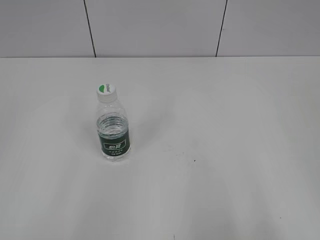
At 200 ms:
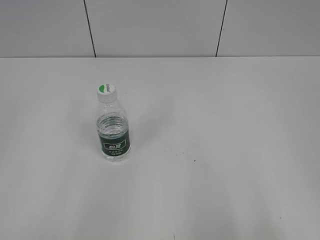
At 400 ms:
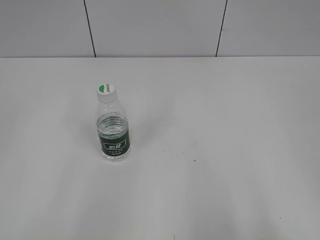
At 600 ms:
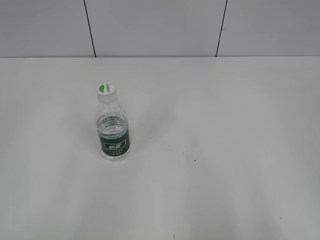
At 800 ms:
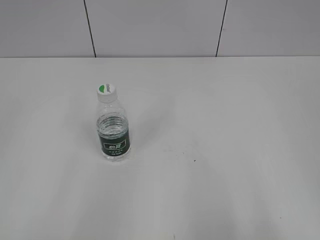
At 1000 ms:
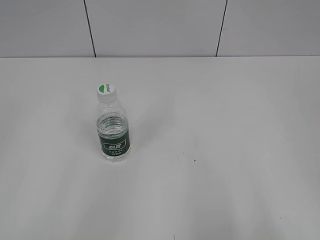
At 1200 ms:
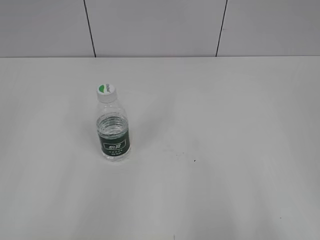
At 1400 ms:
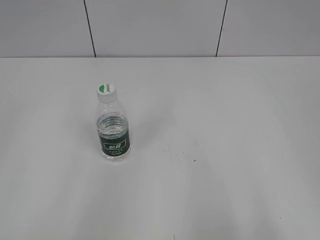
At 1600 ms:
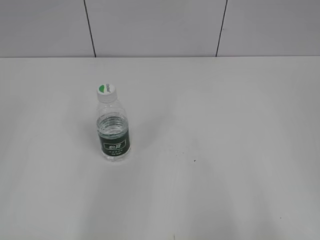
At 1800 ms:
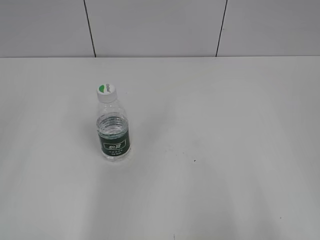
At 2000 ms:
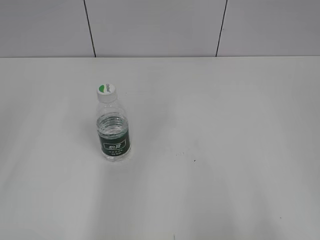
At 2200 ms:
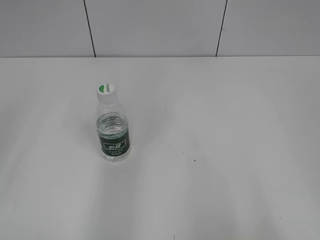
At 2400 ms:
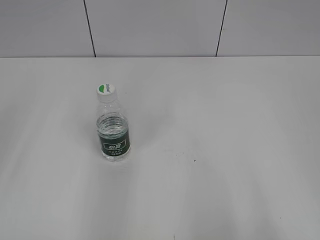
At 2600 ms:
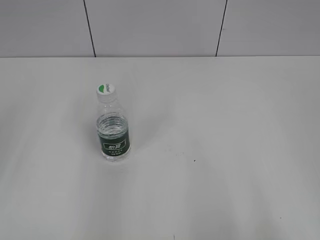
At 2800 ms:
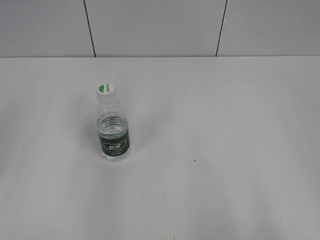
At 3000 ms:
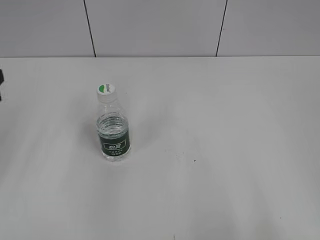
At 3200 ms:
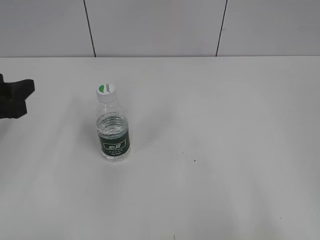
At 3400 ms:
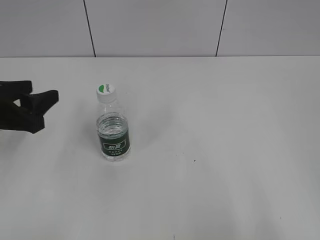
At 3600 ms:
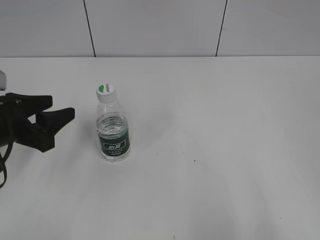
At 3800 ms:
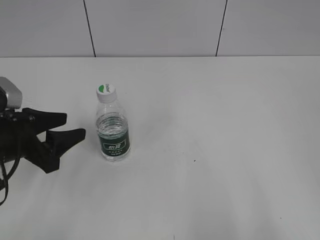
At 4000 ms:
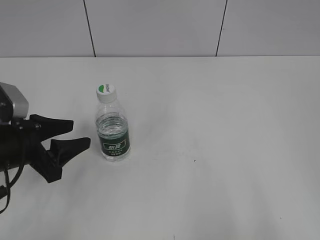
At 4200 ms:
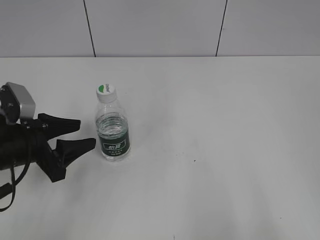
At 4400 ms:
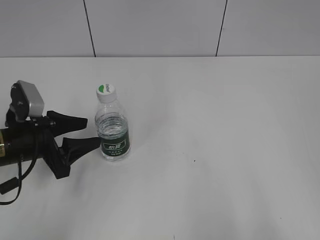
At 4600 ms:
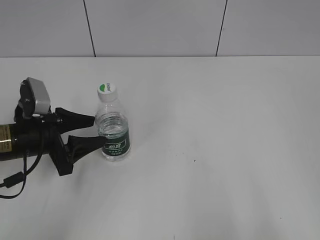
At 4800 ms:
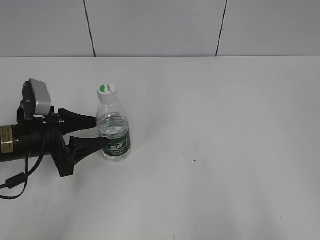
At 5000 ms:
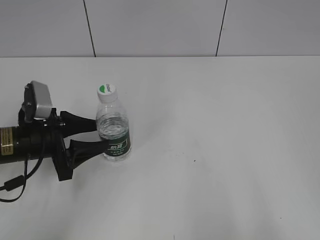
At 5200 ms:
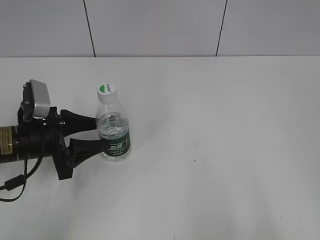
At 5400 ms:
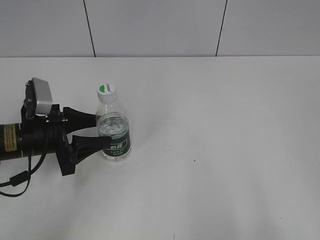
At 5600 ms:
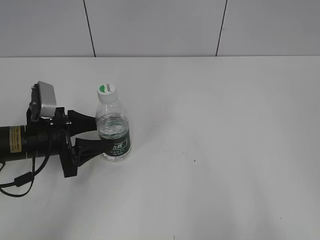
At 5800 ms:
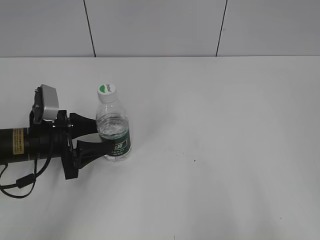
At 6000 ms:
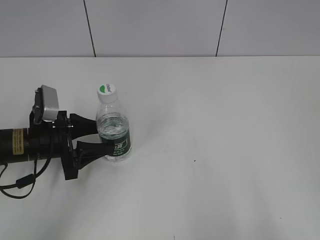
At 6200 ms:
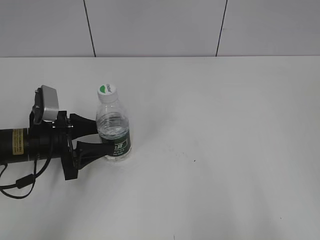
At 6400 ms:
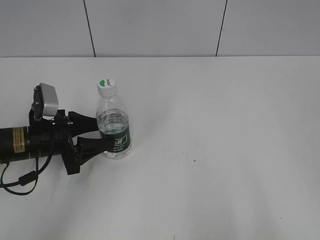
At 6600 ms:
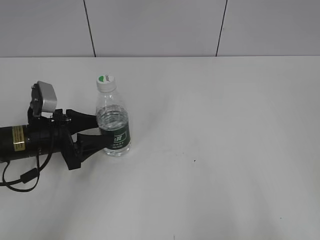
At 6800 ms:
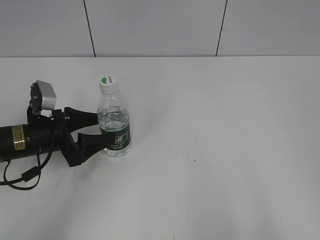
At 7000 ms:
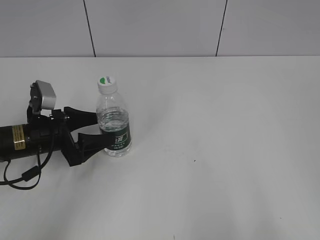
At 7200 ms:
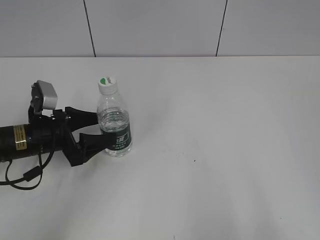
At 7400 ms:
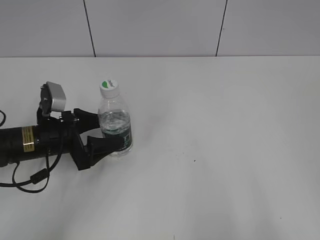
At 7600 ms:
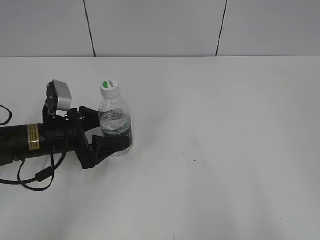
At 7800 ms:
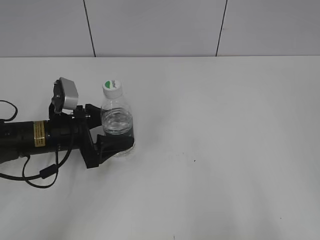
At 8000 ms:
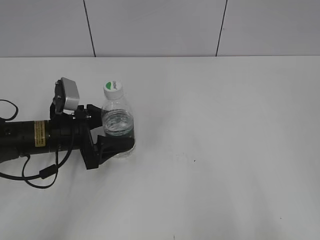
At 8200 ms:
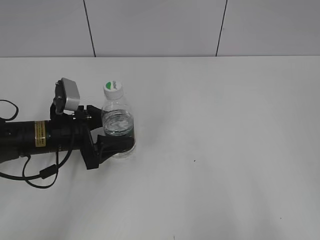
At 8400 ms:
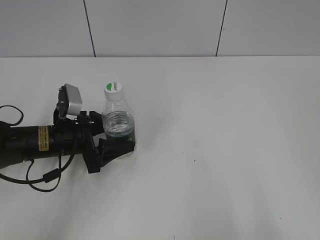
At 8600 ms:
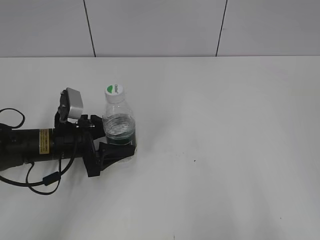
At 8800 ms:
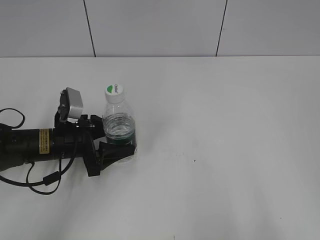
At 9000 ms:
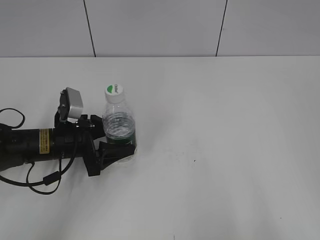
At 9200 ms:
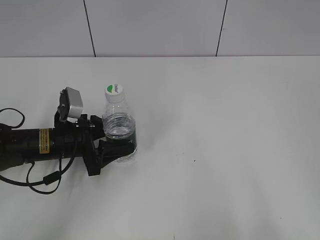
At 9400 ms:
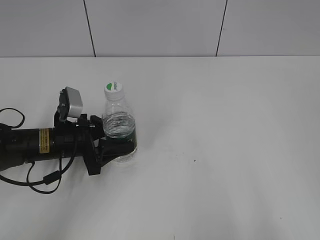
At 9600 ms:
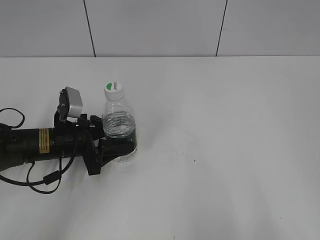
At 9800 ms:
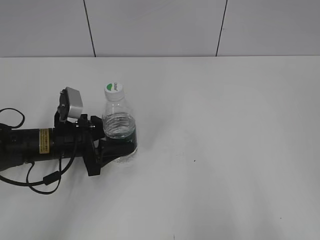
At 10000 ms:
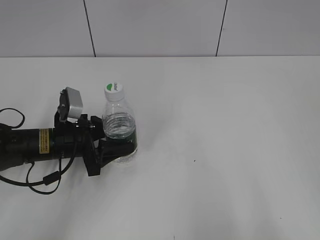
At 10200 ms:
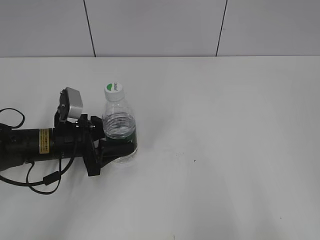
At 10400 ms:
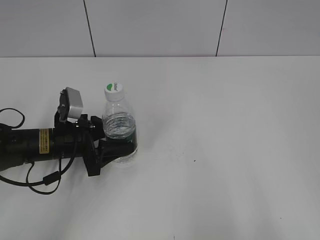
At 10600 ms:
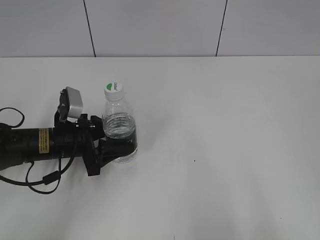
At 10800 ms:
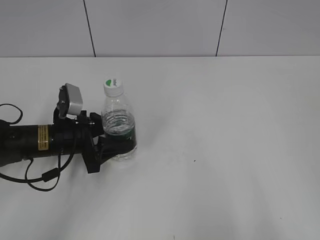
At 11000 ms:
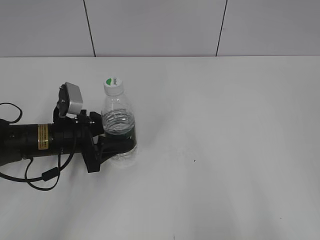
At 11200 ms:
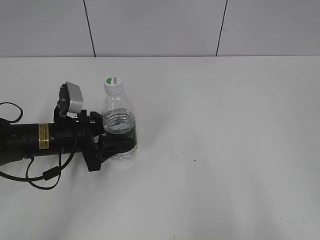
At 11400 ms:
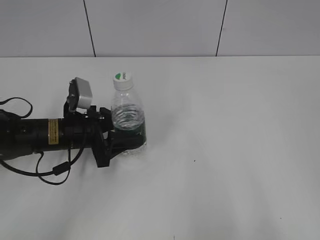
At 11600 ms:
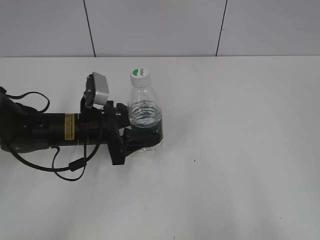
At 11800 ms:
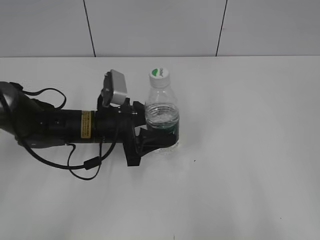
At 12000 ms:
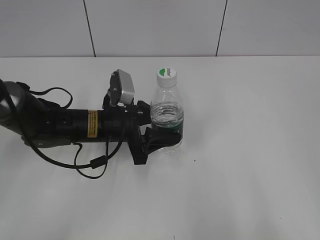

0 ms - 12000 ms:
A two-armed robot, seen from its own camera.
Step, 0 ms - 8600 ms: Grasp the bottle and move it to the center of the table with the left gripper.
3000 ms - 4400 ms: The left gripper is displaced downward and to the right by some 15 cm.
4400 ms - 6000 ms: There are only small adjustments of the grippers.
6000 ms - 7600 ms: The left gripper opens.
7600 ms - 9000 ms: The left gripper closes up.
10400 ms - 12000 ms: The left gripper shifts about 10 cm to the right.

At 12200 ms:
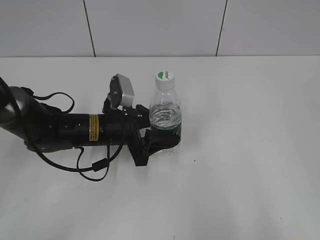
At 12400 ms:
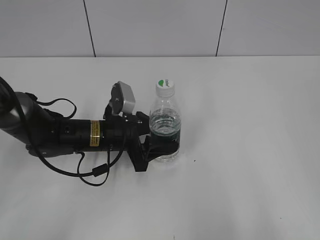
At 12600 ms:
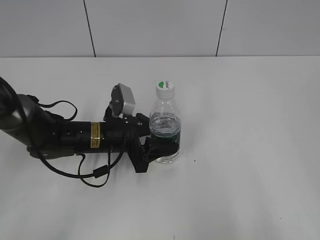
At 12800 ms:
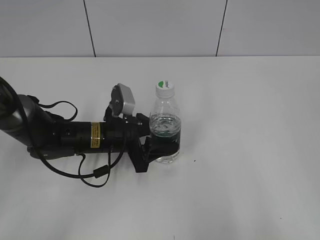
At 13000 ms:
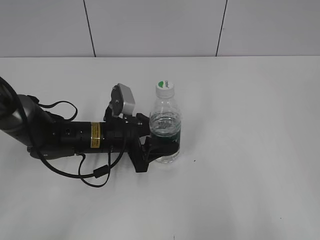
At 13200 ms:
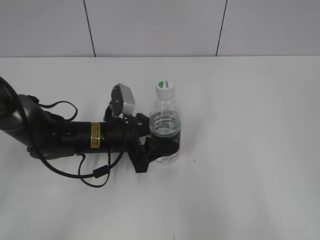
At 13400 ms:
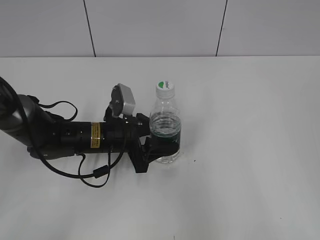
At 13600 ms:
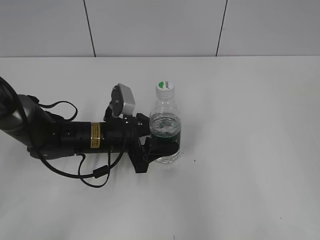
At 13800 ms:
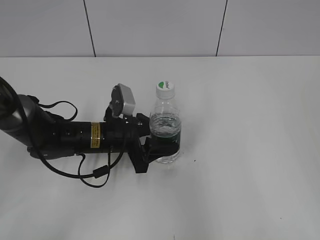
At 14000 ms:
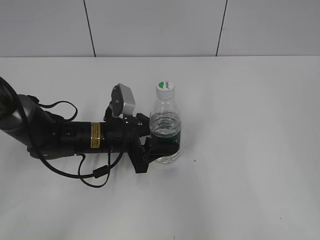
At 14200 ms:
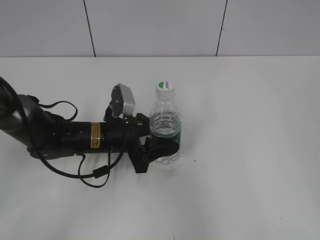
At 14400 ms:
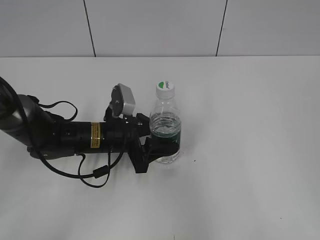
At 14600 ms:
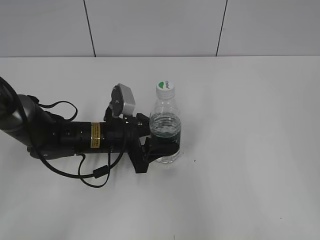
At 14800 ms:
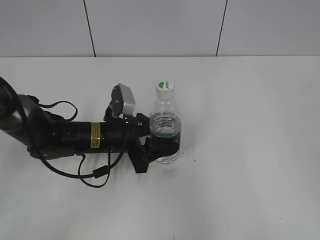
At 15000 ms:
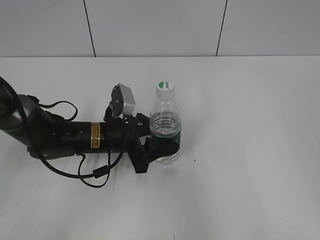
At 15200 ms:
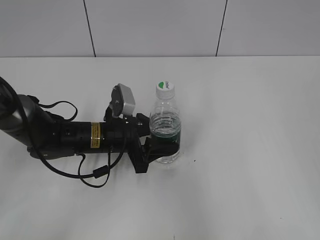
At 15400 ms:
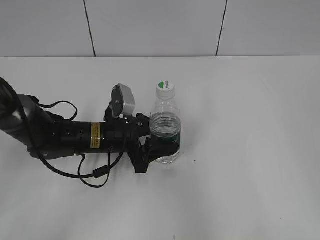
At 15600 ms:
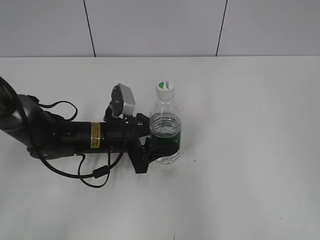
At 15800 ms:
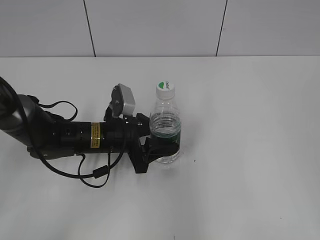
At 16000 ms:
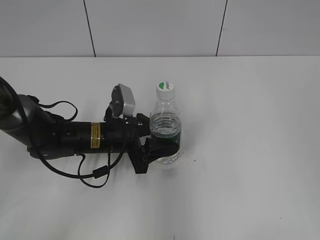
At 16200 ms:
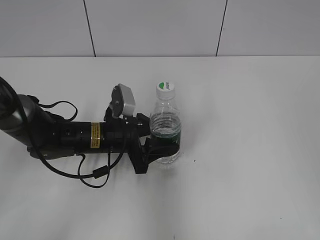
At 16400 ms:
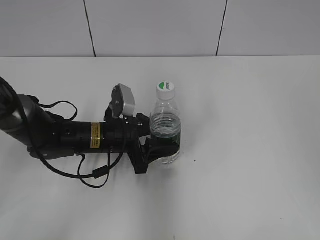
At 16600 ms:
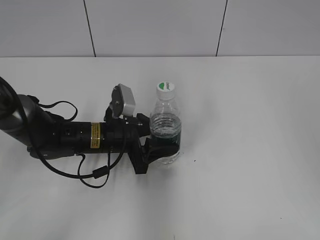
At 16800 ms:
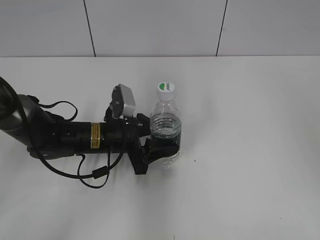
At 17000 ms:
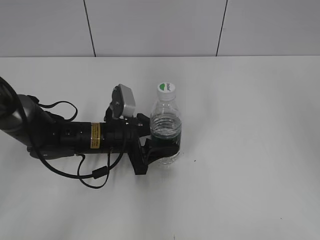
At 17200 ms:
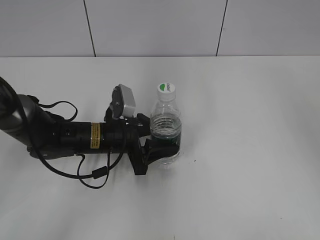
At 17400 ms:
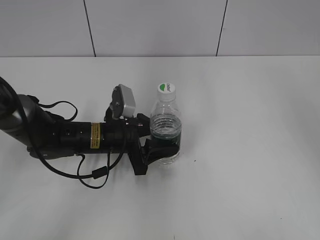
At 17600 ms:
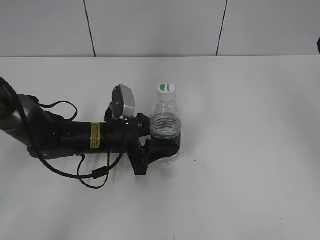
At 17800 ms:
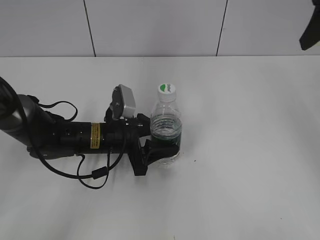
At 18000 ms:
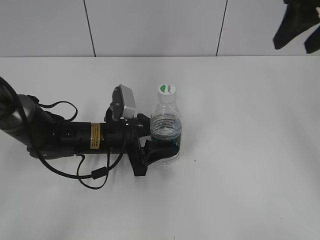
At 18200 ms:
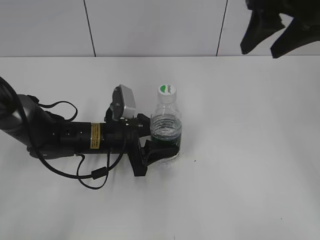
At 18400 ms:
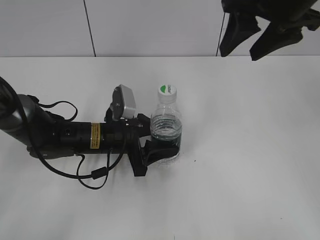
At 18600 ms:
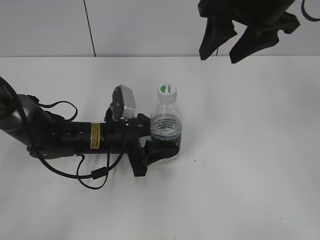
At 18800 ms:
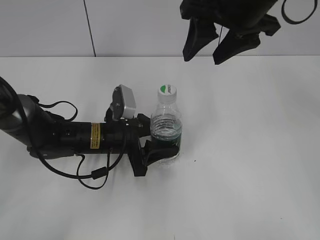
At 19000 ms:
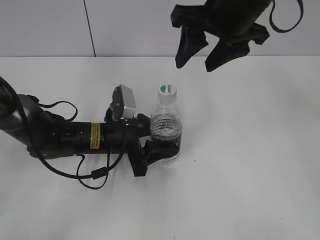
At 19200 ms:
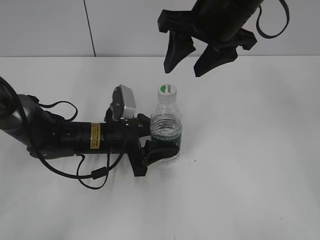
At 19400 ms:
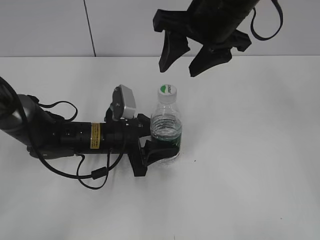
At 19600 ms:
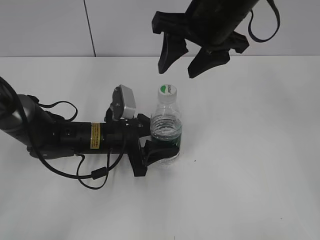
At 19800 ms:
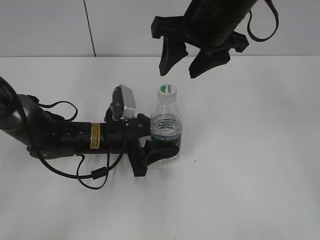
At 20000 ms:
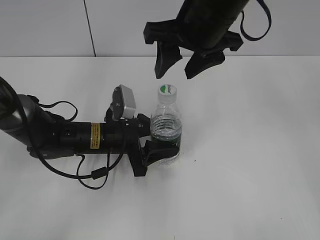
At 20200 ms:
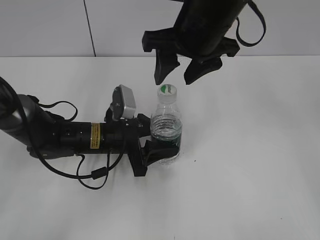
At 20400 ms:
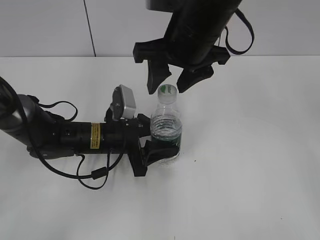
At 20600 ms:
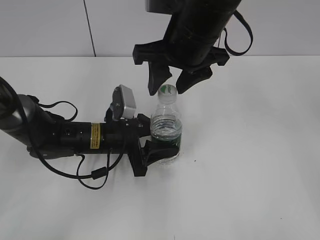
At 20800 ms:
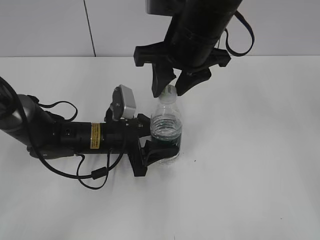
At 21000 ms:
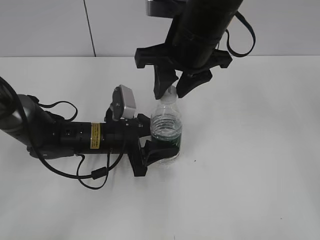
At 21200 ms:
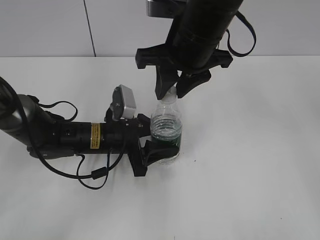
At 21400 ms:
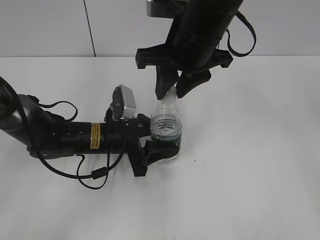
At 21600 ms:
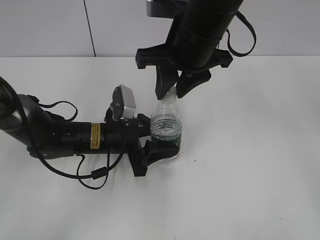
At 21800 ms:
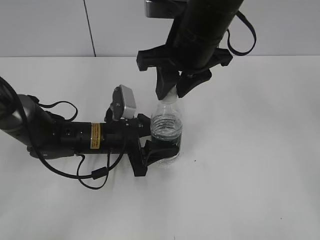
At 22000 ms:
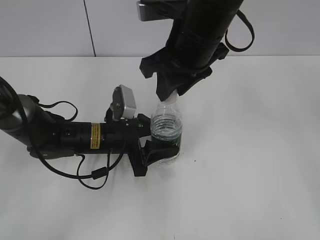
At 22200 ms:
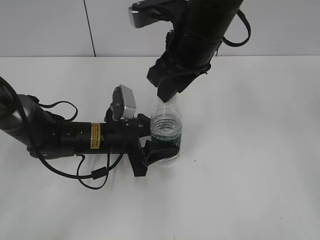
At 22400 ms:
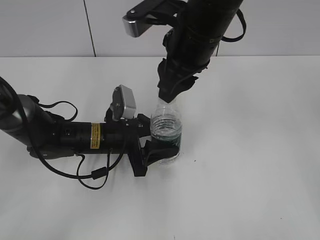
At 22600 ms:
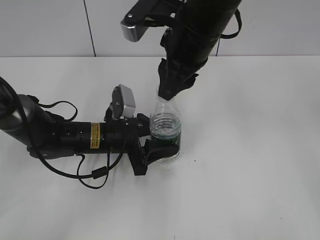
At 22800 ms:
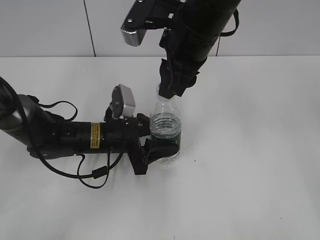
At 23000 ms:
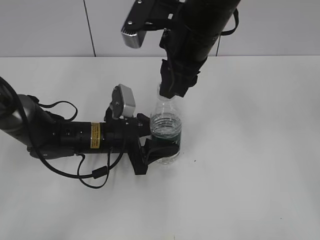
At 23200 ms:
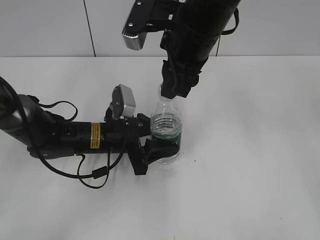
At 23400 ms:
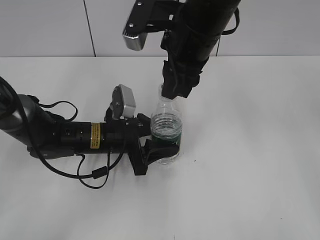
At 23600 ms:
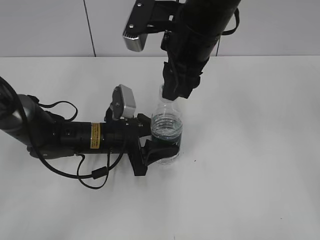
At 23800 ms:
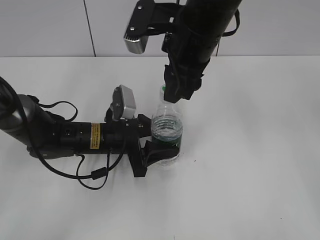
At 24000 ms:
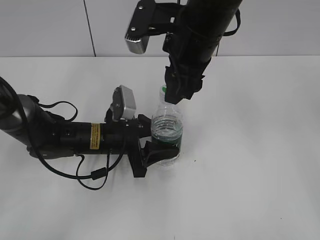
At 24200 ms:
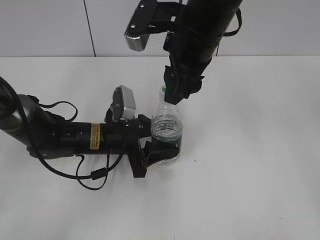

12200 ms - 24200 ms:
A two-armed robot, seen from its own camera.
Step, 12200 ms - 14400 ms: Lift the bottle and move it to the center of the table with the left gripper.
12200 ms - 13800 ms: The right gripper shifts some 5 cm forward.
13800 ms - 15200 ms: Both grippers stay put.
15200 ms - 16600 ms: The right gripper goes some 15 cm forward.
16600 ms - 18200 ms: The right gripper goes roughly 20 cm forward and to the left.
18200 ms - 19800 ms: The right gripper travels to the left by approximately 10 cm.
19800 ms - 21200 ms: The right gripper closes up.
22600 ms - 24200 ms: The right gripper opens its fingers.
